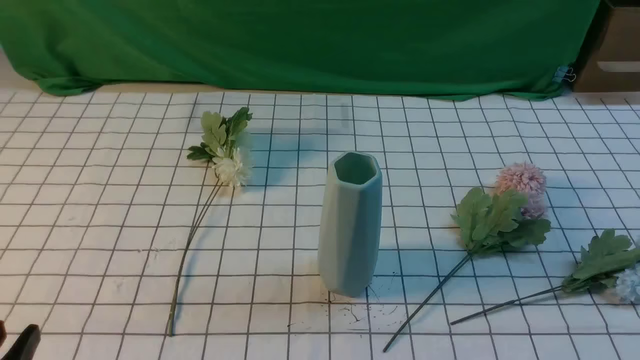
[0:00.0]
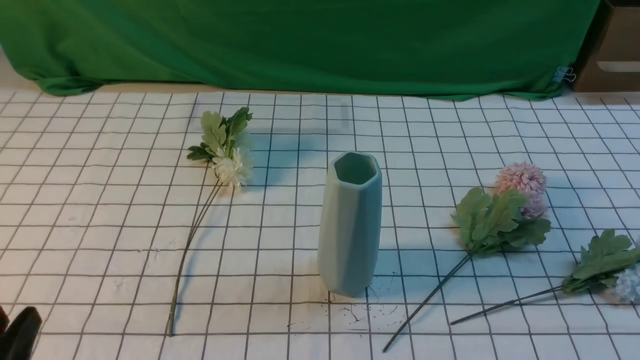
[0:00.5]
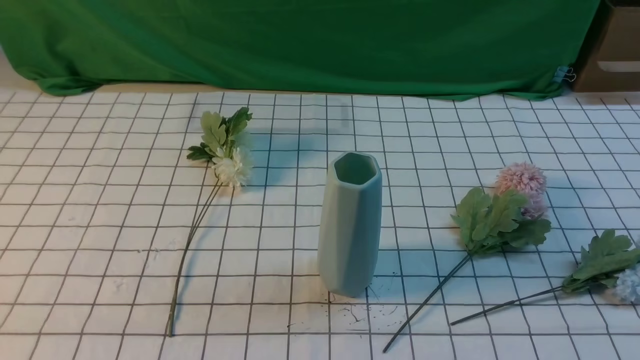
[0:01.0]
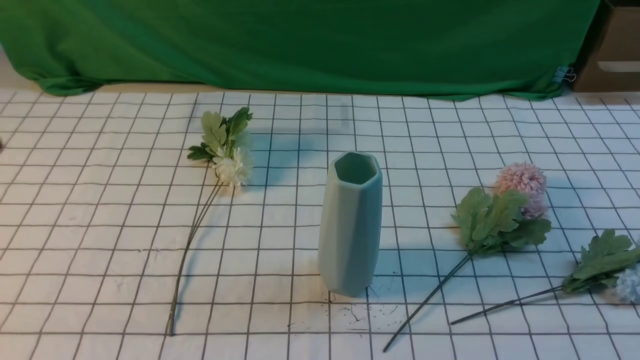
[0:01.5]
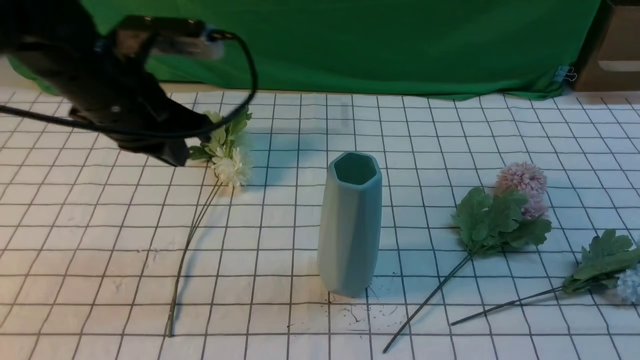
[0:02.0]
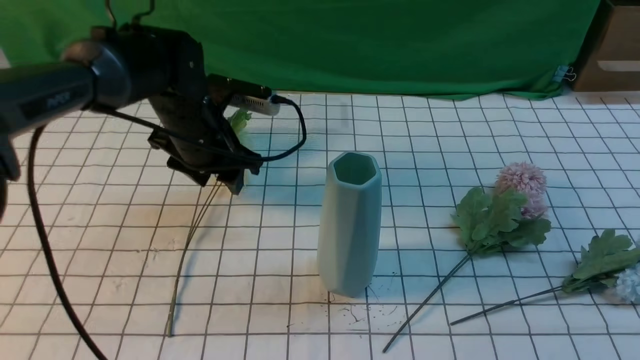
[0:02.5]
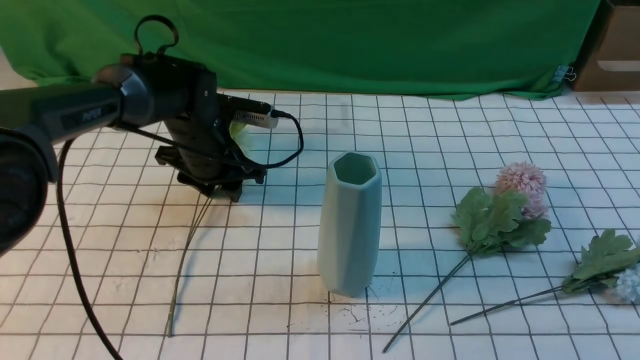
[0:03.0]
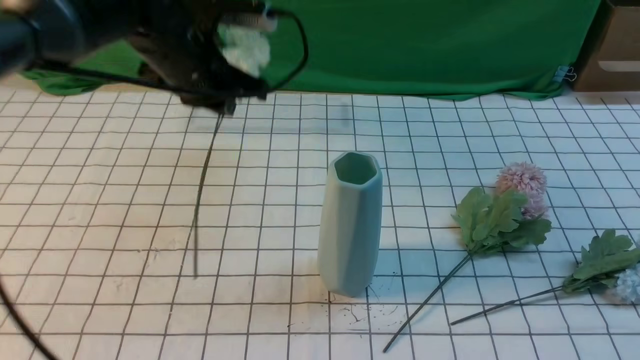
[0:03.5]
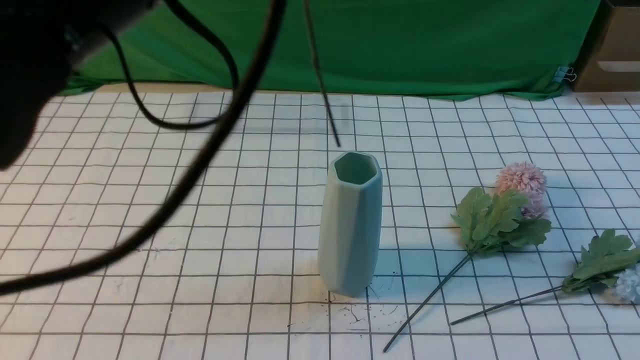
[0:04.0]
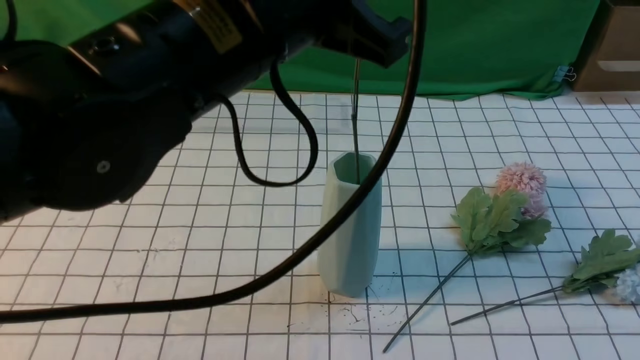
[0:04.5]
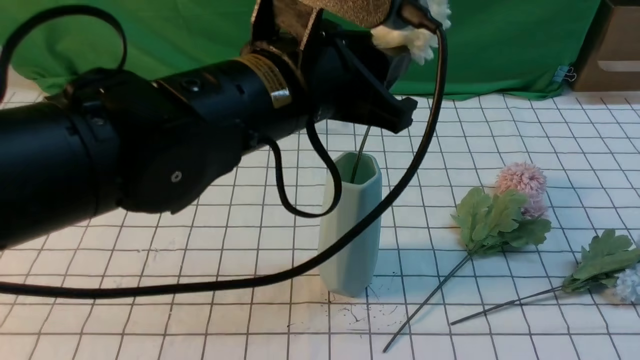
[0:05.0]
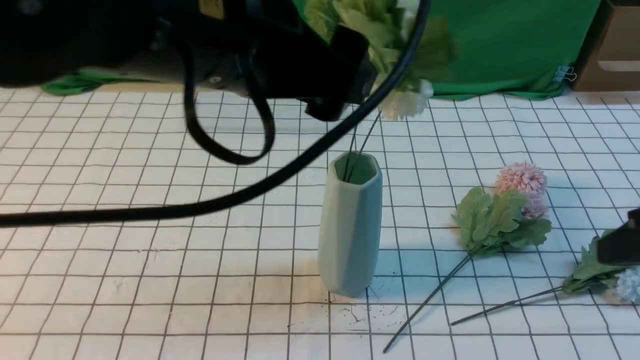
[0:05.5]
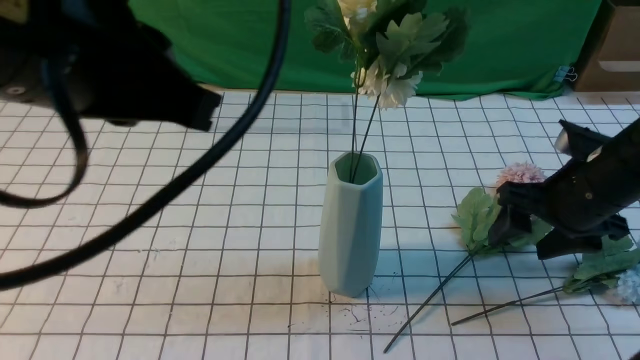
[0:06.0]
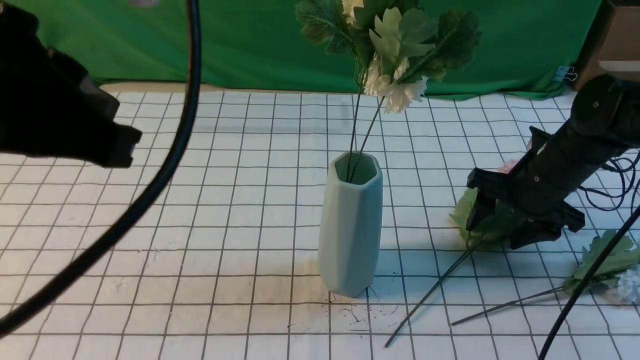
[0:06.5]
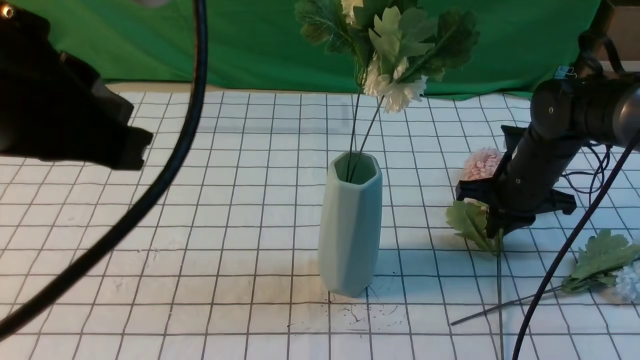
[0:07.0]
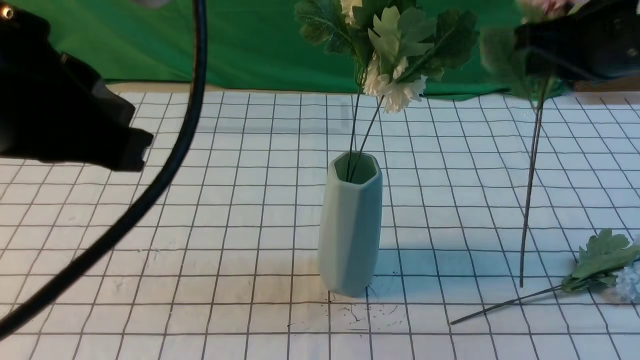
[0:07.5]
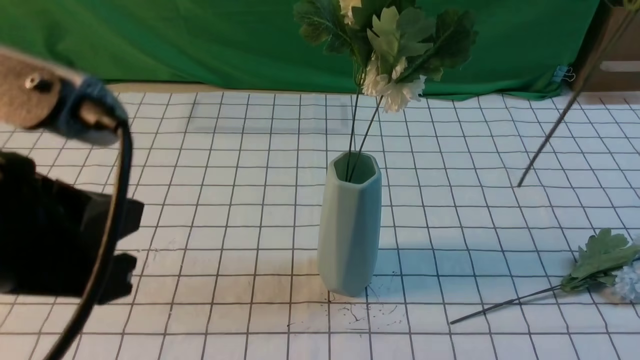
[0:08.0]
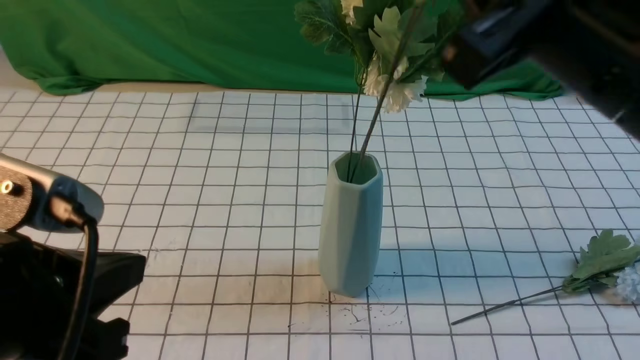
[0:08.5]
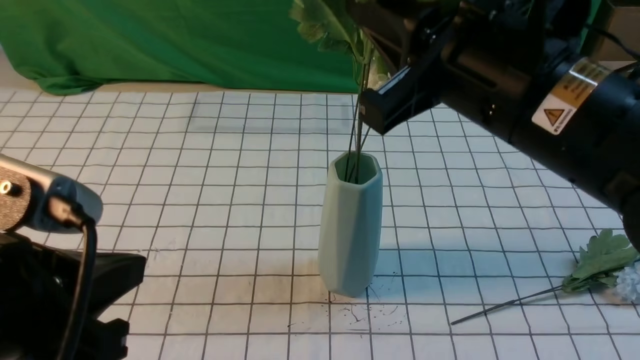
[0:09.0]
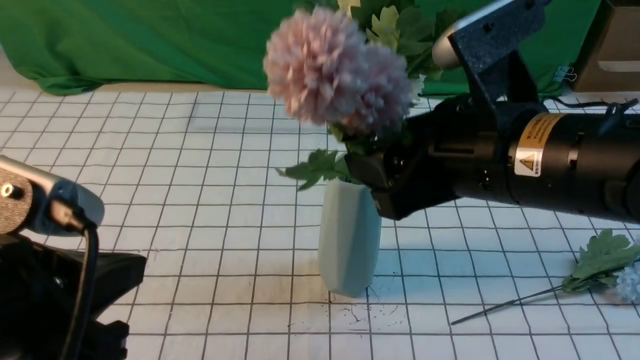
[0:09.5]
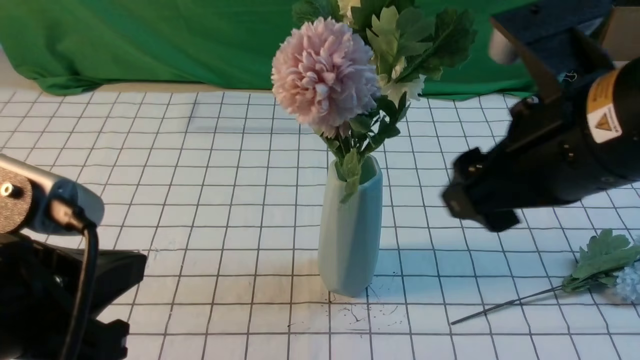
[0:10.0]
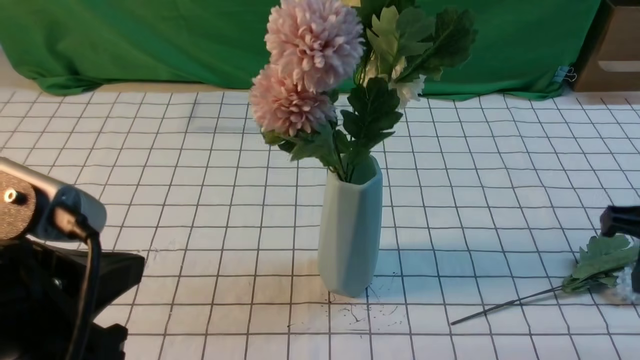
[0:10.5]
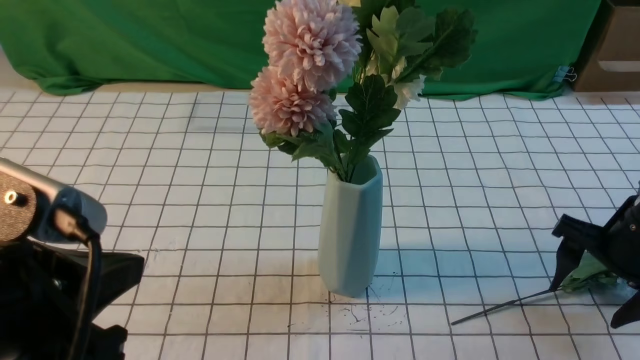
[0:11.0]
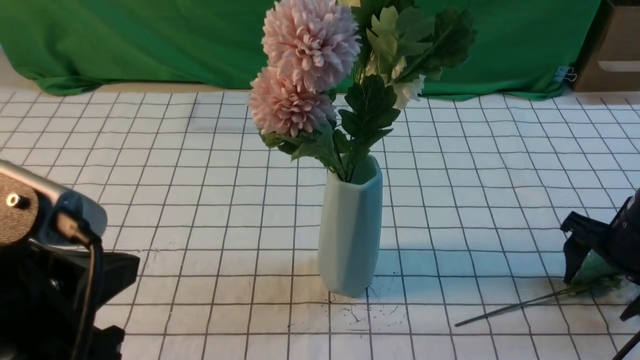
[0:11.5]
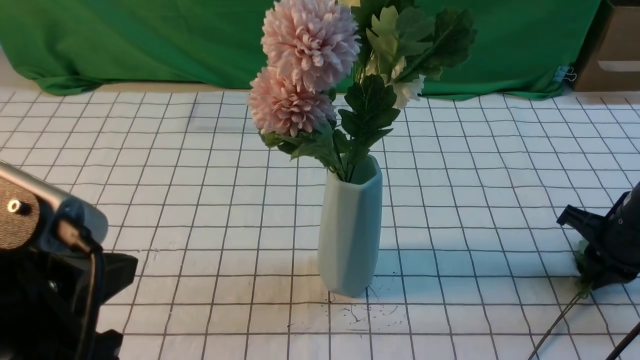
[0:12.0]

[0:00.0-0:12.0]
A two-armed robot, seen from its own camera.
Task of the whole recording: insert the flowers into the vase on the table with the white tablecloth.
Step, 0:00.0 to 0:03.0: use the left arm to grab a bunch of fresh flowers.
Step, 0:03.5 to 0:05.0: use the left arm to insert the flowers into the vase.
Step, 0:05.5 to 0:07.0: use the right arm to grab a bunch of fresh flowers.
Step, 0:07.5 to 0:09.5: use the right arm to insert the flowers into the vase.
0:00.0 to 0:02.0: The left gripper moves forward, approximately 30 cm, and closes its fingers.
0:02.0 to 0:04.0: The right gripper shifts approximately 10 cm upward. Meanwhile the left gripper goes roughly 20 cm upward, backward and to the right, and opens, then closes again.
0:04.0 to 0:06.0: The right gripper goes approximately 25 cm forward and downward, and opens. The left gripper shifts some 5 cm backward, and opens, then closes once more.
0:06.0 to 0:08.0: The left gripper travels downward and backward by about 10 cm. The right gripper is displaced upward and backward by approximately 25 cm, and closes up.
0:08.0 to 0:10.0: The right gripper travels downward and to the left by roughly 10 cm, and opens up.
0:10.0 to 0:12.0: The right gripper moves downward, to the right and forward, about 30 cm, and closes.

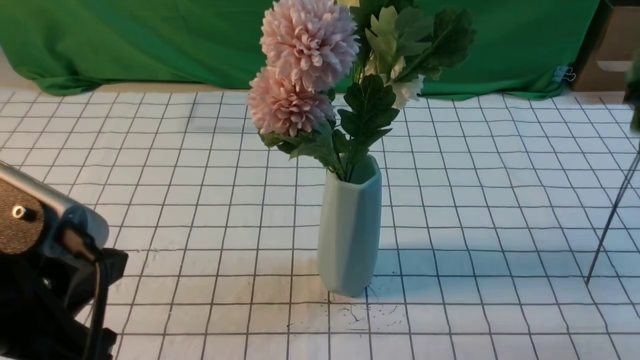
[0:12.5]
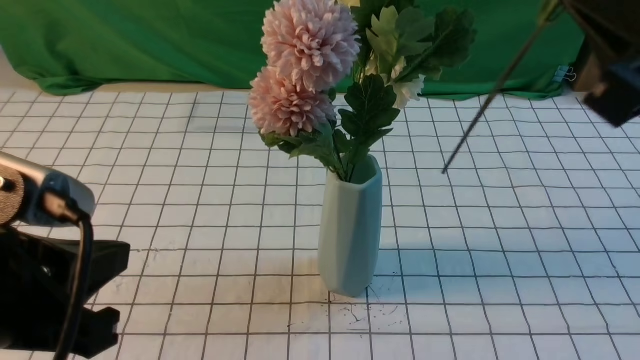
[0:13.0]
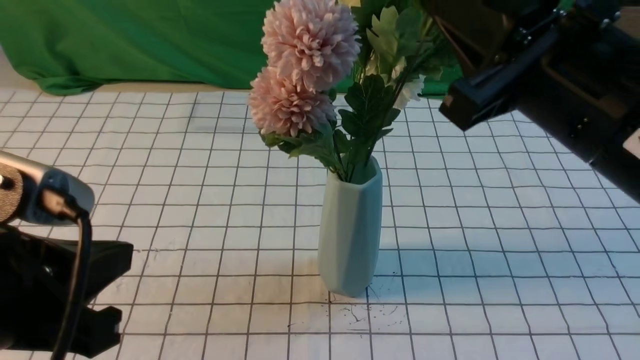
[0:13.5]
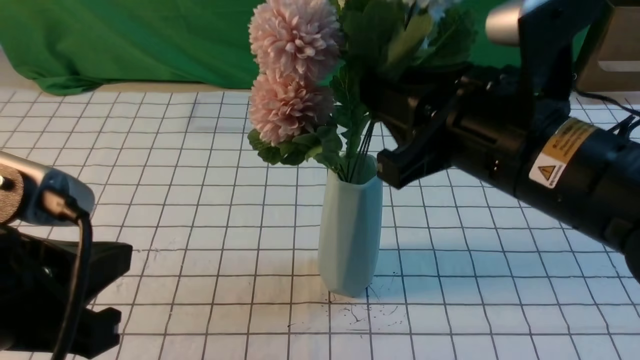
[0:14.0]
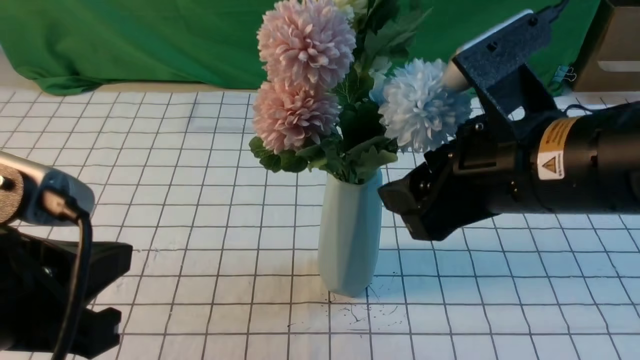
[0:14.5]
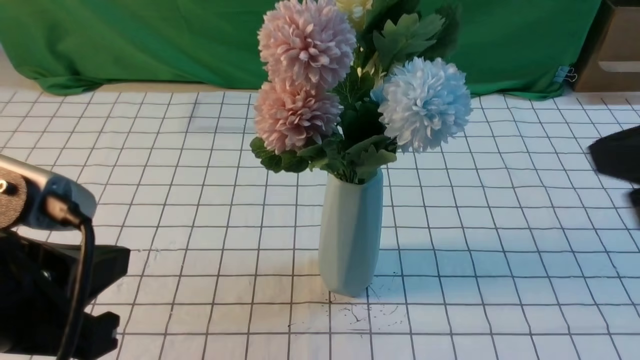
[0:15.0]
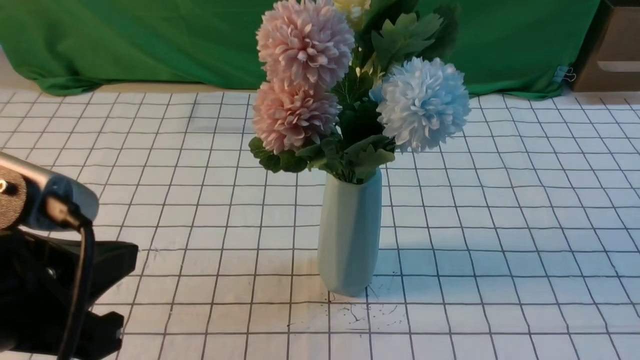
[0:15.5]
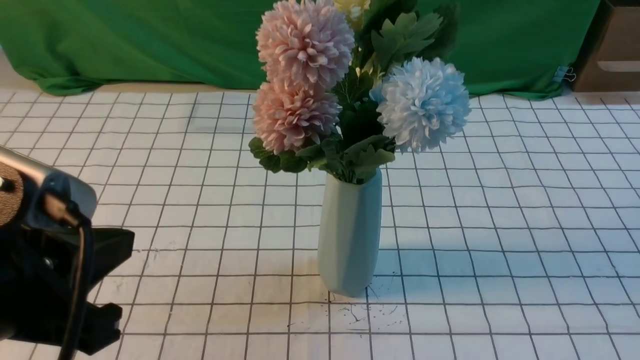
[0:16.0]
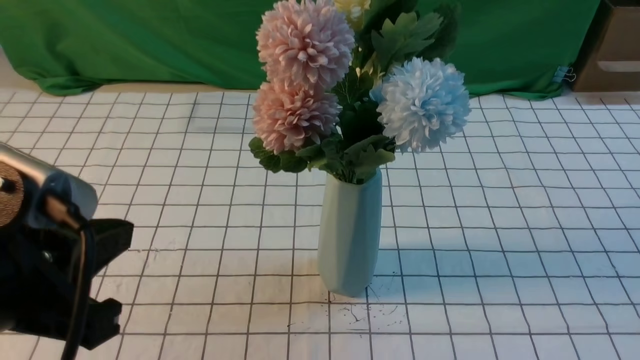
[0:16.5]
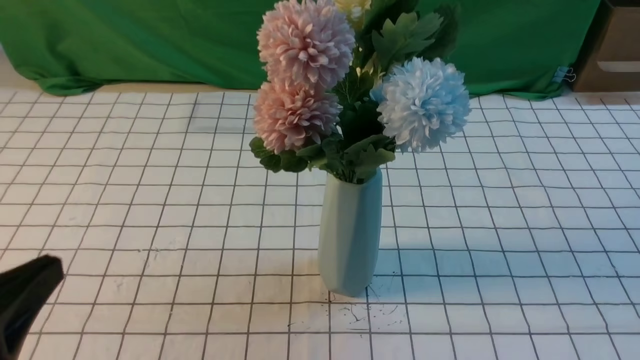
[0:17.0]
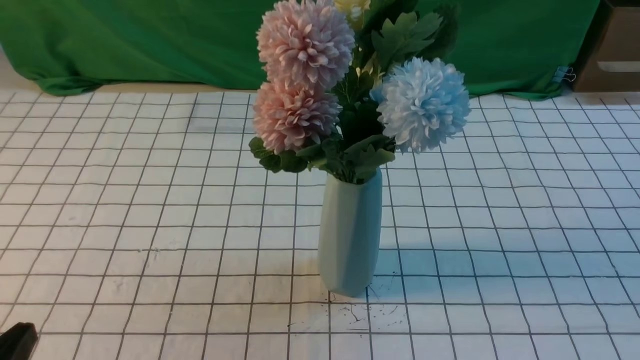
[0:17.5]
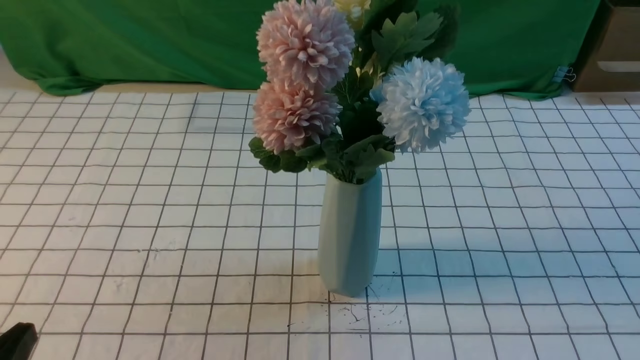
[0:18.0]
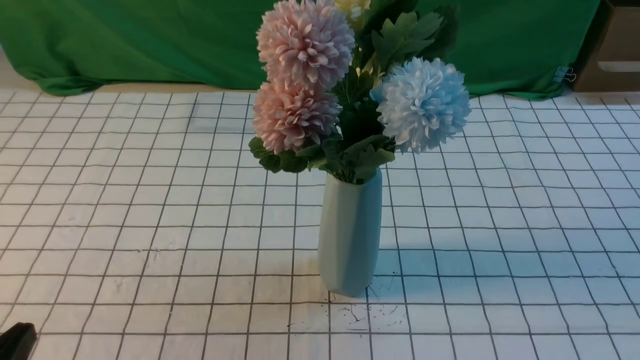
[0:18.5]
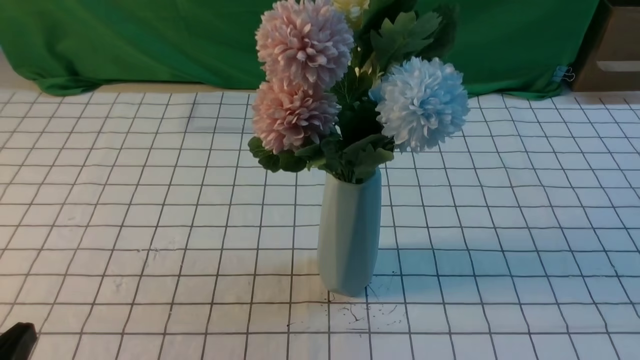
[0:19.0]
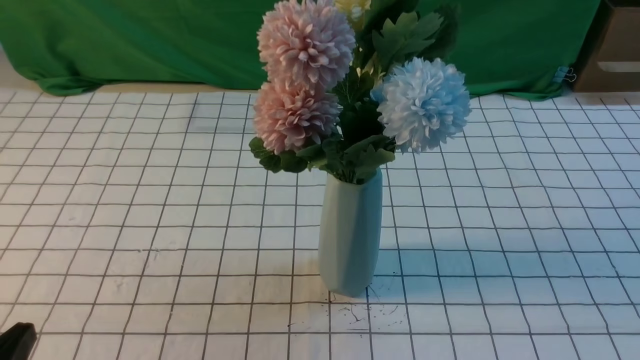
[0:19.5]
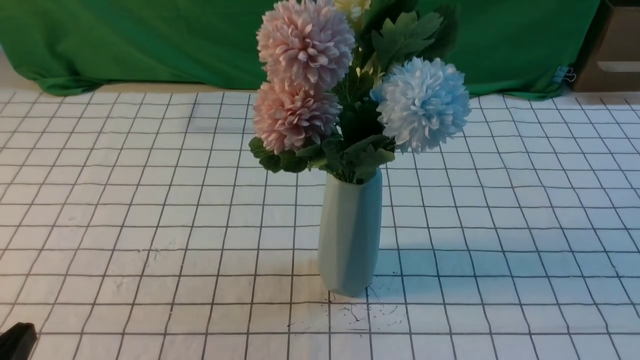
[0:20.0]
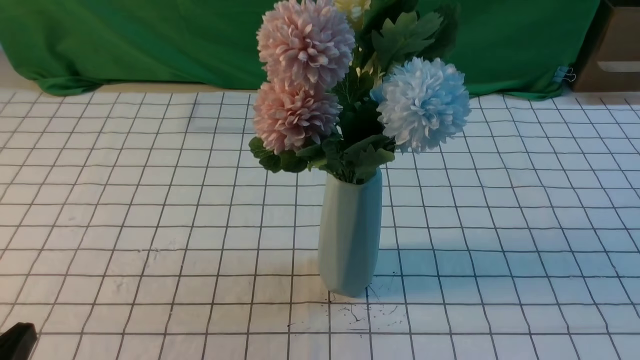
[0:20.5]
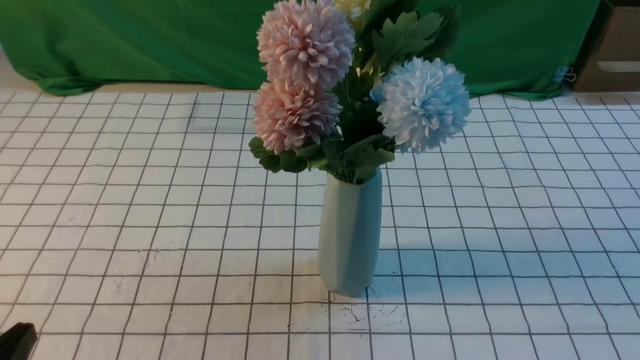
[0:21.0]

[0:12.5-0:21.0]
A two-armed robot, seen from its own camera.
Task of the whole recording: insert the flowers into the vase on the table with the white tablecloth.
Step, 0:12.5 to 0:14.0: use the right arm to insert the flowers into the vase.
0:12.5 to 0:14.5: The right gripper moves to the left, some 15 cm, and opens its fingers.
0:14.5 to 0:16.5: The right gripper travels backward and to the right by some 25 cm, and closes up.
0:16.5 to 0:19.0: The left gripper is displaced downward and to the left by roughly 15 cm.
